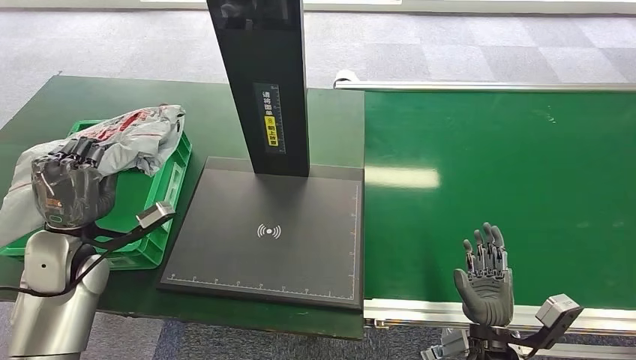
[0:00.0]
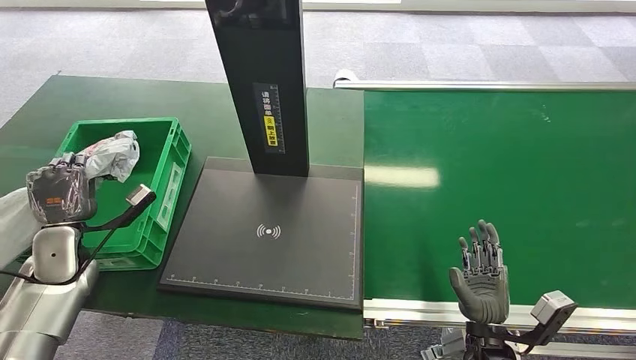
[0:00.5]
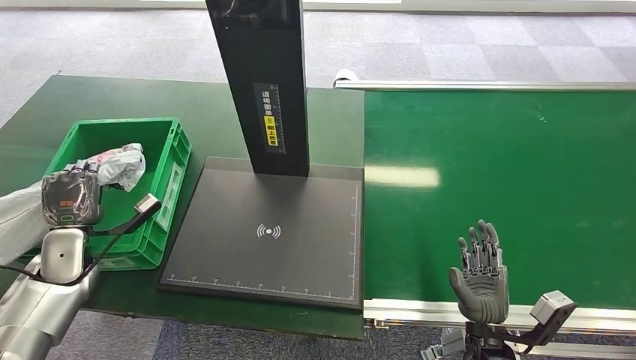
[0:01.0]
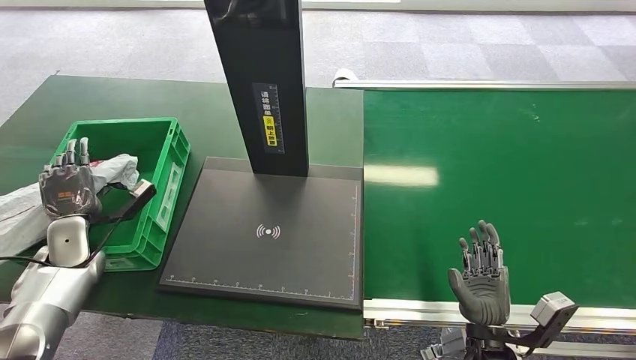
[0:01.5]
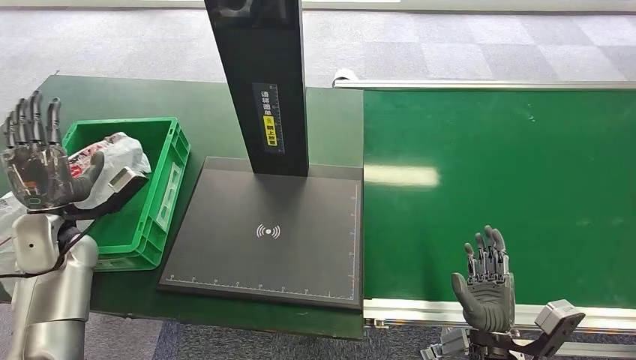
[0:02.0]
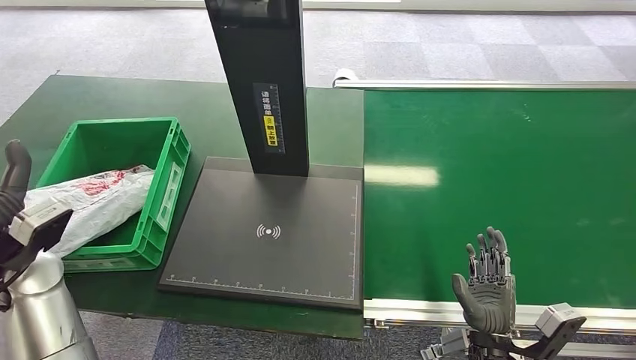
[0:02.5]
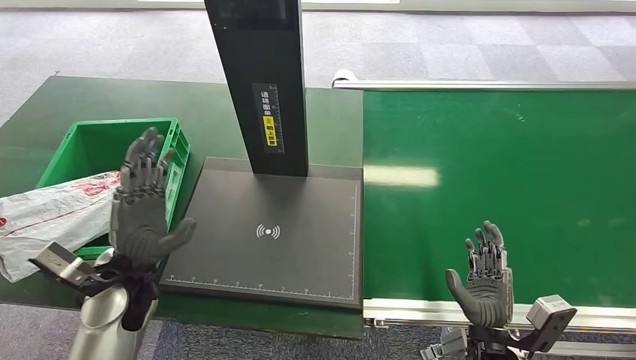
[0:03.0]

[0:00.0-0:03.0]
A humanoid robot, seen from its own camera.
Task of the whole recording: Weigh the package on the weighing device and place it in the left basket.
Step, 0:00.5 to 0:03.0: Place the package into the parcel locker.
0:00.0 to 0:01.5: The left hand is displaced downward, to the left and forward by approximately 10 cm.
0:01.5 to 0:03.0: The left hand shifts roughly 20 cm to the right and backward.
